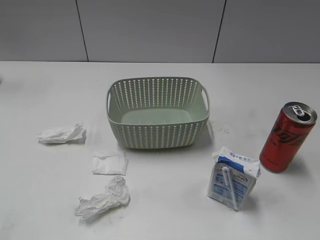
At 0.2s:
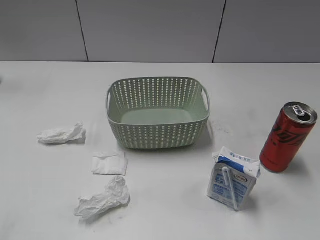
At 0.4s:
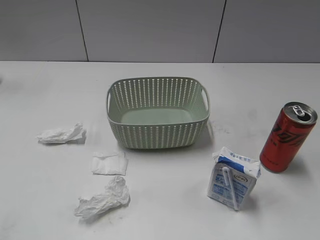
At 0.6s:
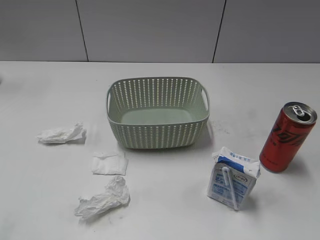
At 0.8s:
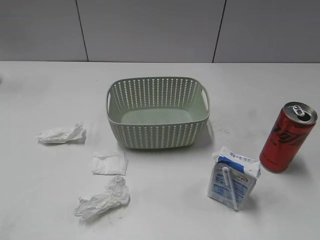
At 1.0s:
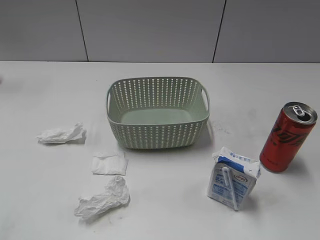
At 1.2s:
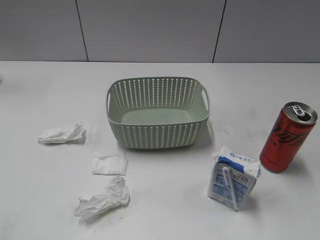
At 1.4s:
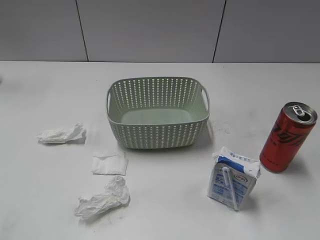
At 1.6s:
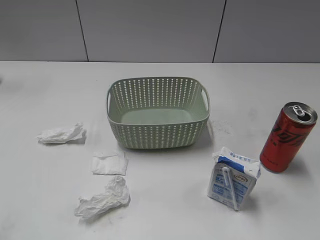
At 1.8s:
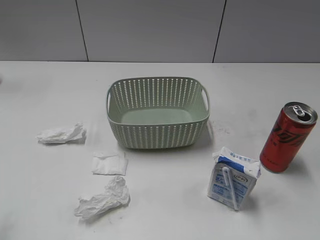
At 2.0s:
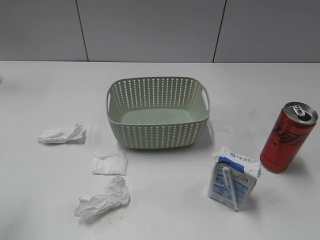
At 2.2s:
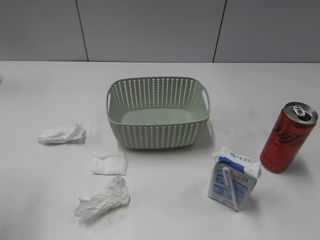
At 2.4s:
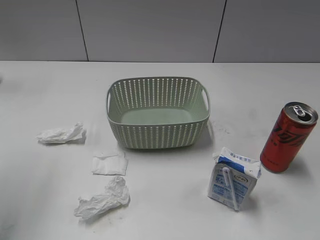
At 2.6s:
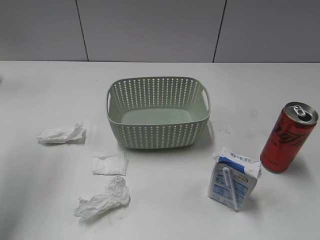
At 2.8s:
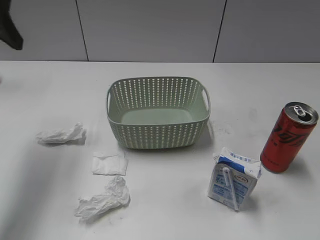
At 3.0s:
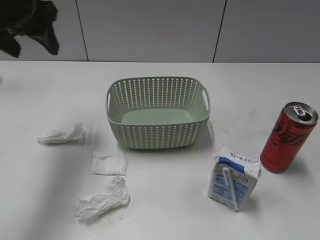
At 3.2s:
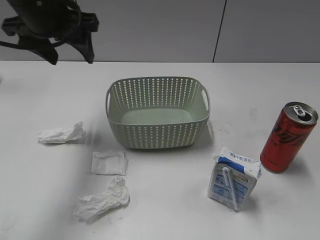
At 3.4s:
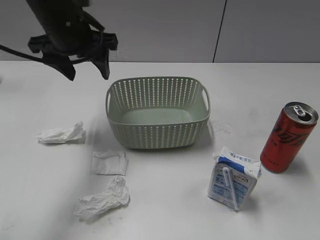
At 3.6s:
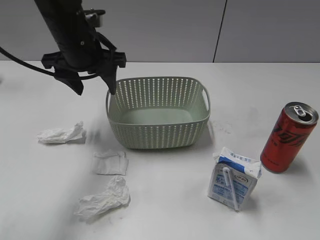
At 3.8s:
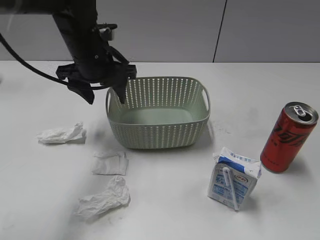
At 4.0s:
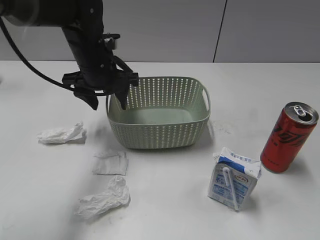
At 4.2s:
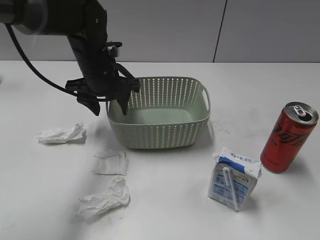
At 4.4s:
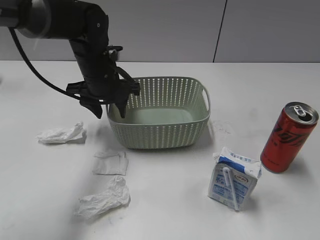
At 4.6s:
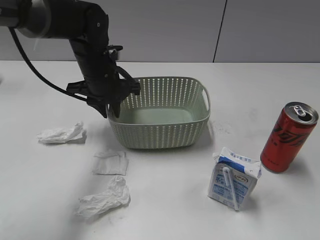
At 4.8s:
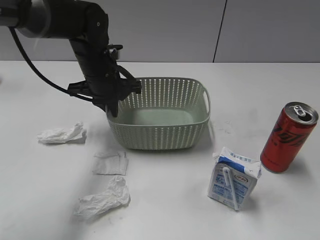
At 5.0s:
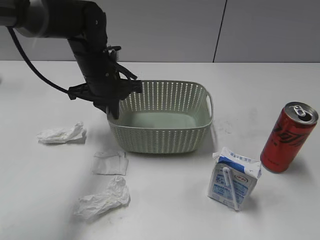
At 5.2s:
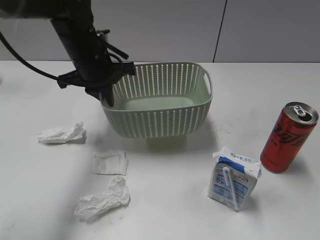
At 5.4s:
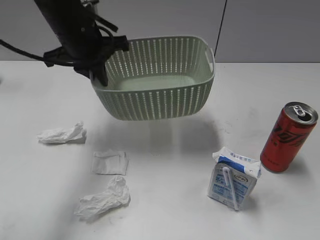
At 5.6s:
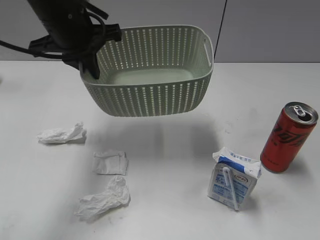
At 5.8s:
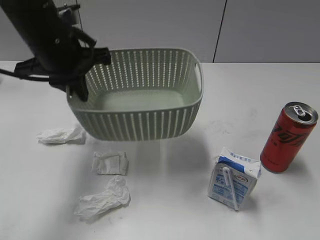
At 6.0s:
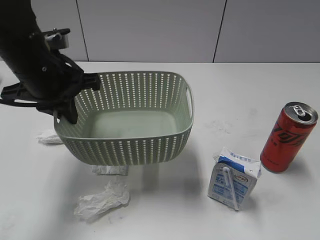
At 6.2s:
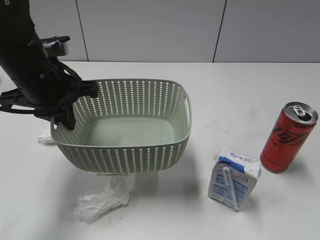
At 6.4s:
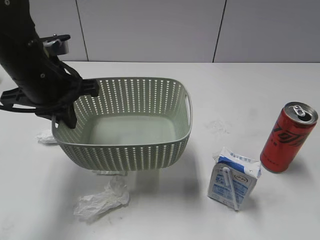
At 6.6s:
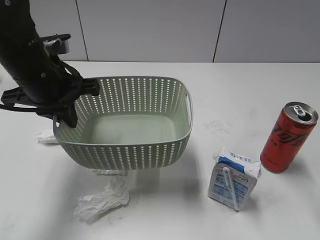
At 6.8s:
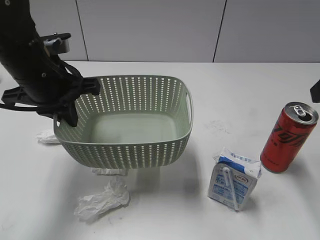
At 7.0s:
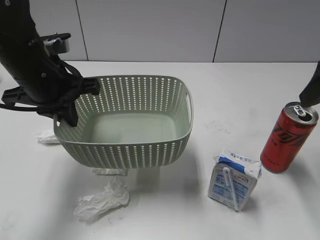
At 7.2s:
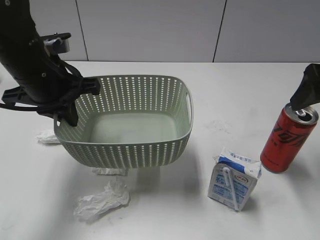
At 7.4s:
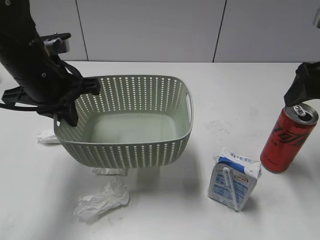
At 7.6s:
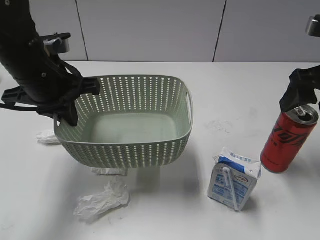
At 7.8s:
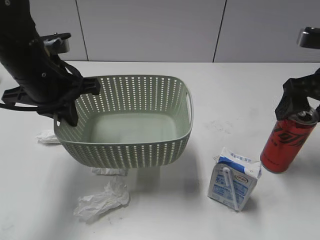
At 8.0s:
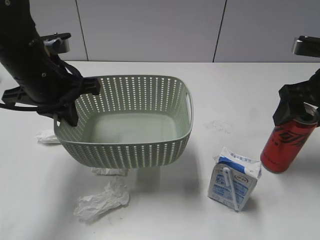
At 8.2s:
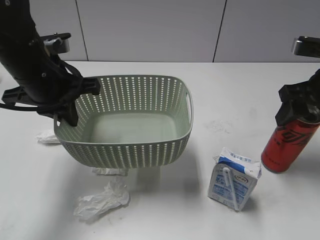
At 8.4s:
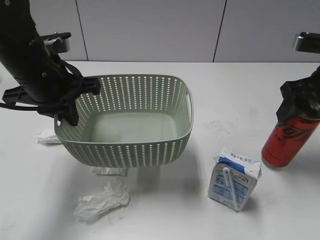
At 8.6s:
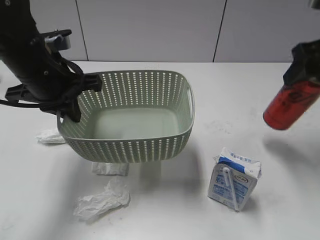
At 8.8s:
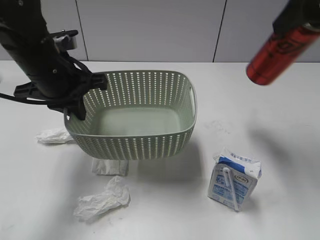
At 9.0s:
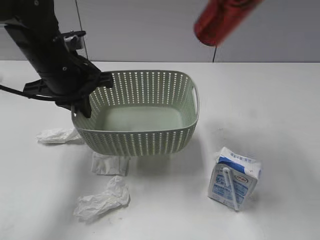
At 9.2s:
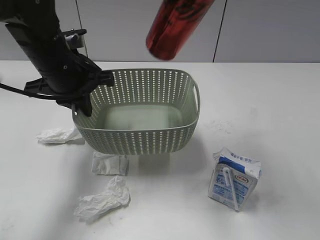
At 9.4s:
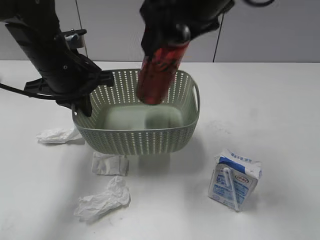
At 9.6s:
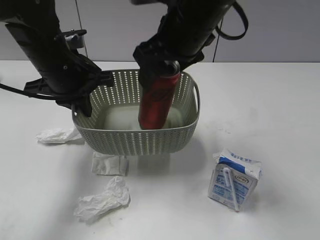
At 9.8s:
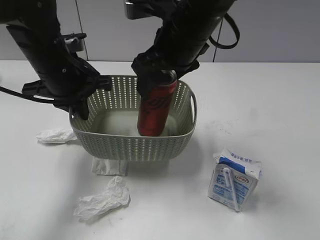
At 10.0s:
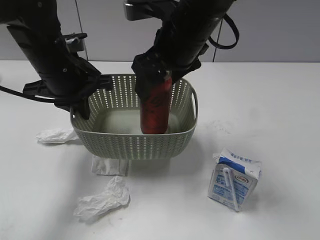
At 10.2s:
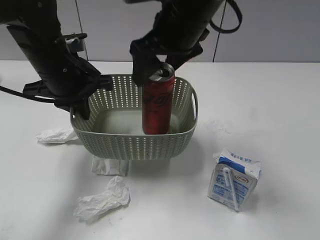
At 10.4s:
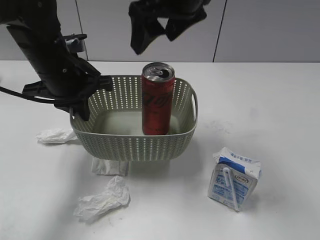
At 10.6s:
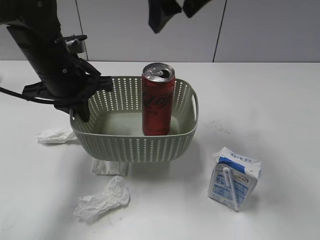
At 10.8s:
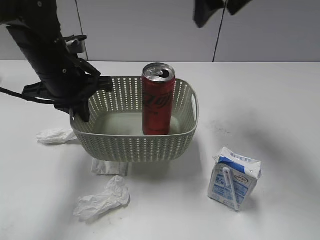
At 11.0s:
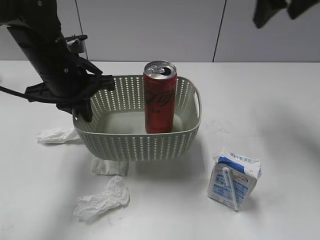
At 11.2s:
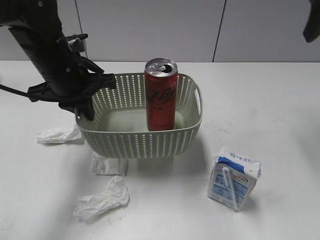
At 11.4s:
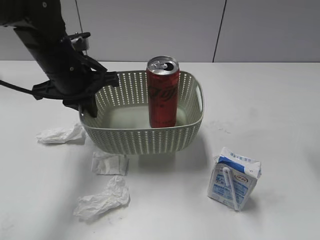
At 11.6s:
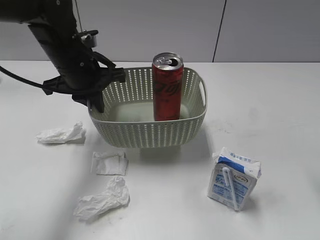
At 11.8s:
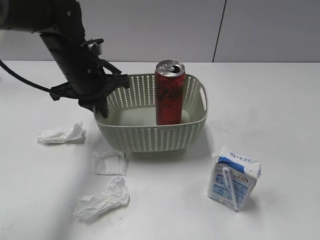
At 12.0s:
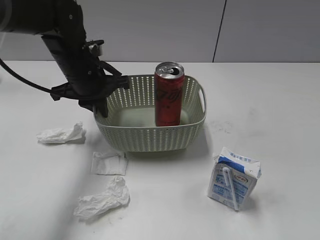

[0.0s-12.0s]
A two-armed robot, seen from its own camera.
Step, 2.8s to 4.8s: Grasp the basket with left gripper.
Step, 5.0s to 6.4s: Lift the basket with left gripper.
Step, 6.6s to 8.4s: Grasp the cola can with right gripper.
Step, 8.6s to 10.2s: Place the cola can in the basket with right gripper.
1.6s to 3.0s: The left gripper travels forward and to the right by approximately 30 cm.
3.0s to 4.4s: The left gripper is displaced downward and to the right by some 20 cm.
4.4s to 6.0s: The right gripper travels upward by about 5 cm; the left gripper shifts roughly 15 cm backward, upward and to the left, and closes up.
6.0s to 7.6s: The right gripper heads forward, covering roughly 25 cm, and opens up.
7.6s to 9.0s: The right gripper travels upward and to the left by approximately 20 cm, and closes up.
9.0s to 10.4s: The right gripper moves to the left, downward and forward, approximately 15 cm, and opens its fingers.
10.4s to 12.0s: The left gripper ends up some 5 cm from where it was; the right gripper is displaced to the right and backward by about 35 cm, and closes its fingers.

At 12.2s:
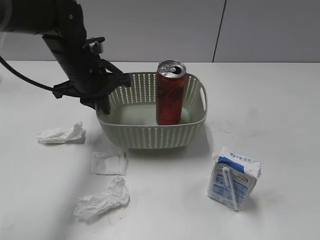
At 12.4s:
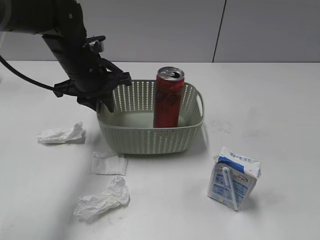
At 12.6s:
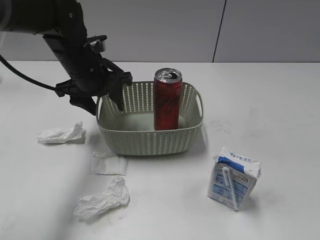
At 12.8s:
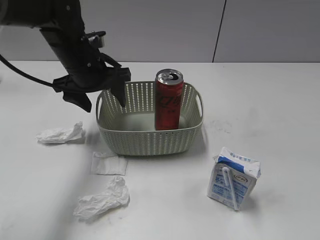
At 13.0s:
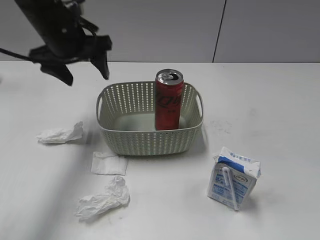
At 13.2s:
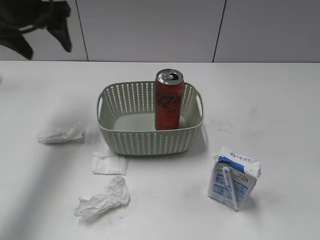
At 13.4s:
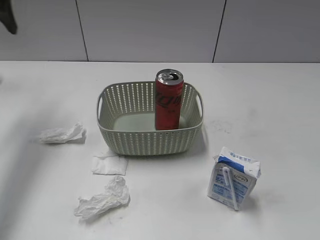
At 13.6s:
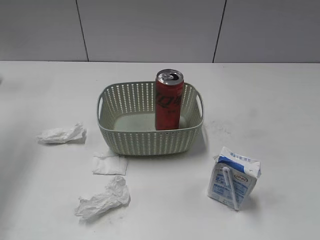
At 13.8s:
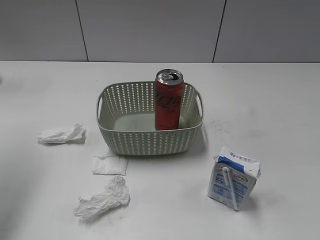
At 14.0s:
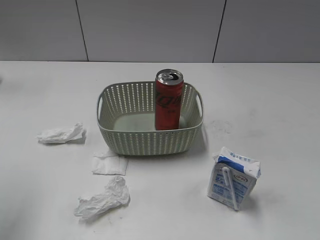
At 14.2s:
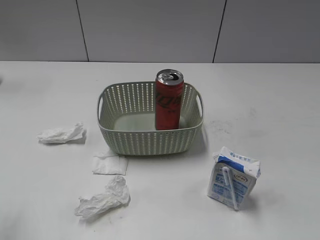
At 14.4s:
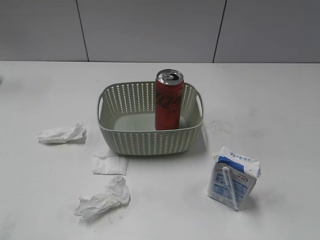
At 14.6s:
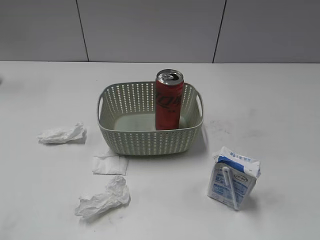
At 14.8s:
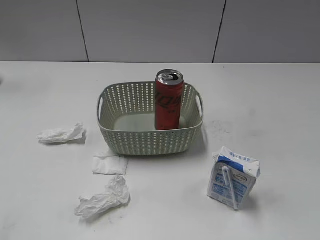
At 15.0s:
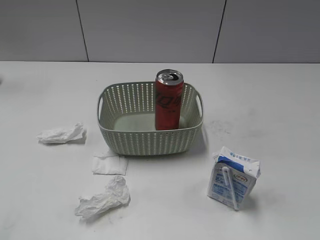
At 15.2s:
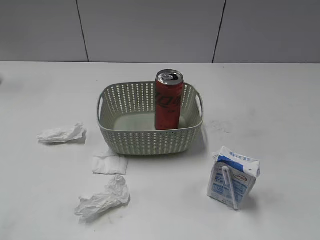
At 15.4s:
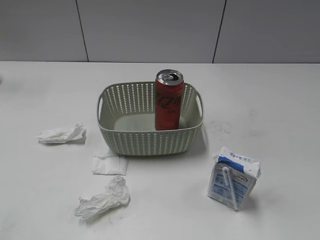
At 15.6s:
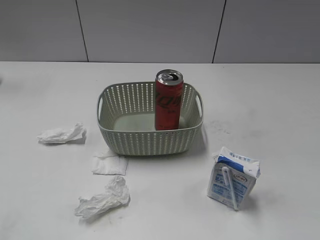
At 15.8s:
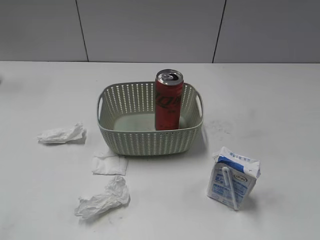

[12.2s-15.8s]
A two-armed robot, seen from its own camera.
12.2s to 14.0s: The right gripper shifts roughly 5 cm backward. The left gripper heads backward, to the left and upward, covering roughly 30 cm, and opens up.
14.0s to 15.8s: The left gripper shifts approximately 15 cm backward.

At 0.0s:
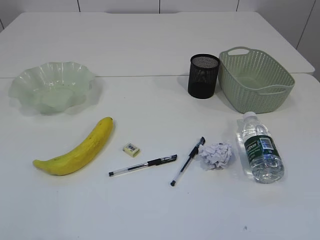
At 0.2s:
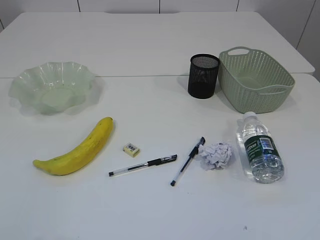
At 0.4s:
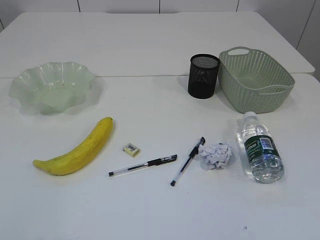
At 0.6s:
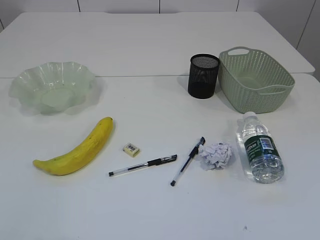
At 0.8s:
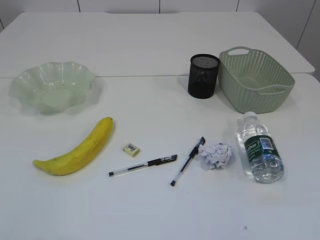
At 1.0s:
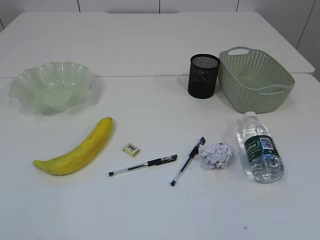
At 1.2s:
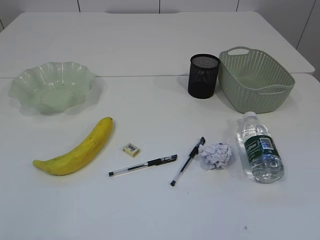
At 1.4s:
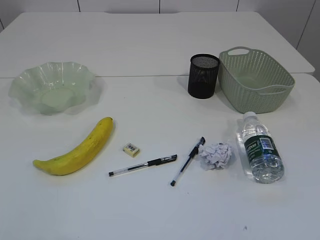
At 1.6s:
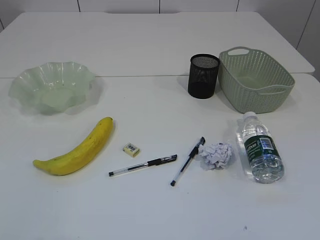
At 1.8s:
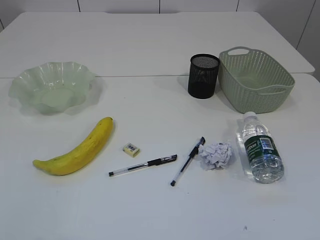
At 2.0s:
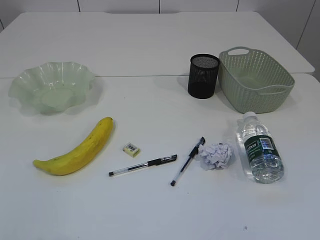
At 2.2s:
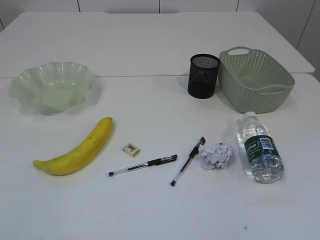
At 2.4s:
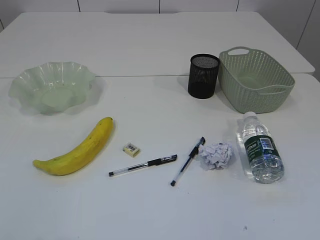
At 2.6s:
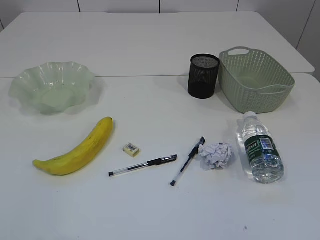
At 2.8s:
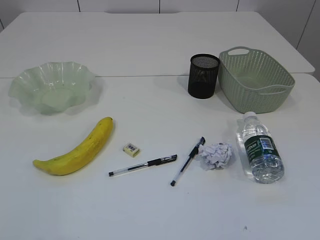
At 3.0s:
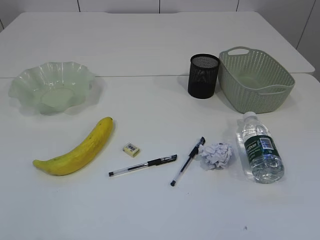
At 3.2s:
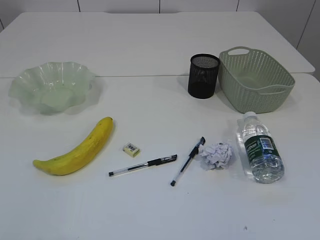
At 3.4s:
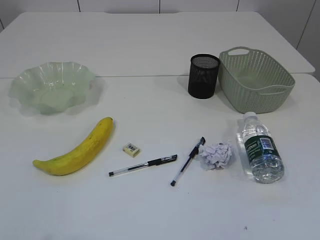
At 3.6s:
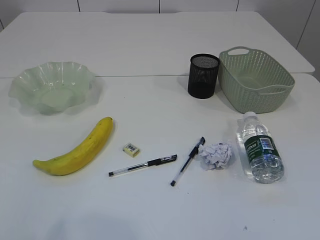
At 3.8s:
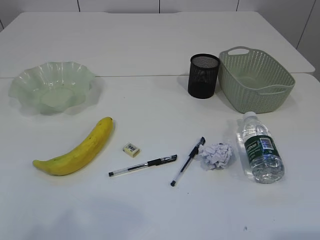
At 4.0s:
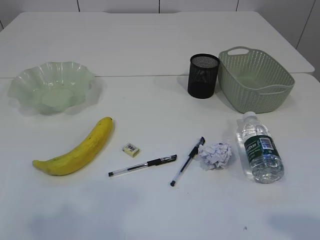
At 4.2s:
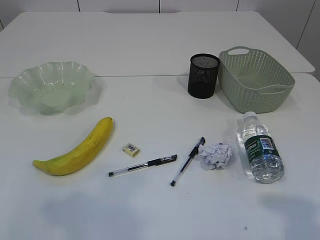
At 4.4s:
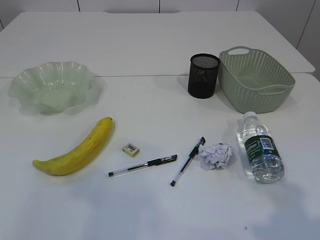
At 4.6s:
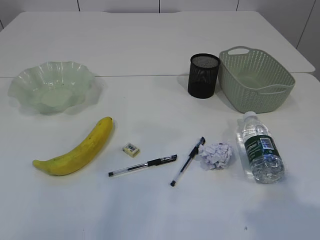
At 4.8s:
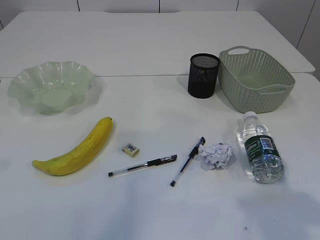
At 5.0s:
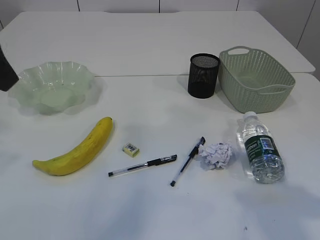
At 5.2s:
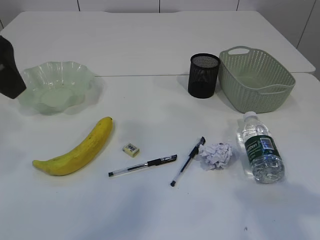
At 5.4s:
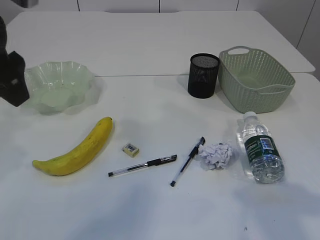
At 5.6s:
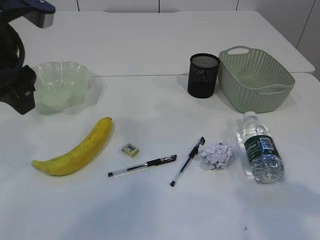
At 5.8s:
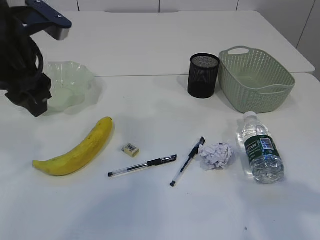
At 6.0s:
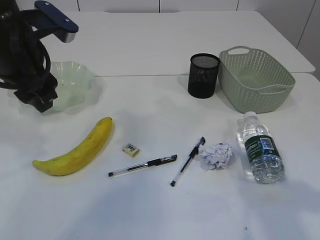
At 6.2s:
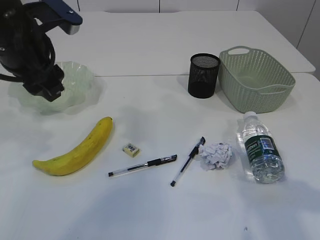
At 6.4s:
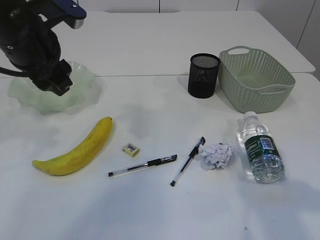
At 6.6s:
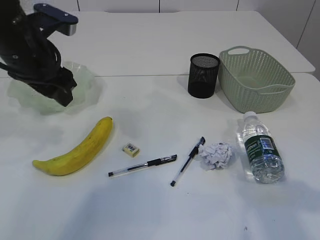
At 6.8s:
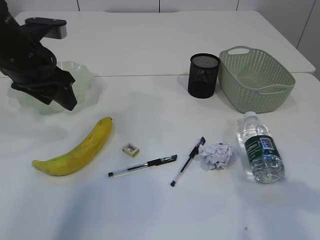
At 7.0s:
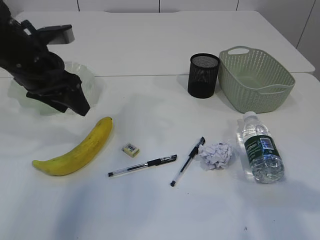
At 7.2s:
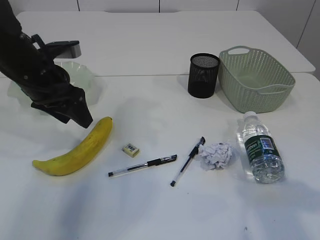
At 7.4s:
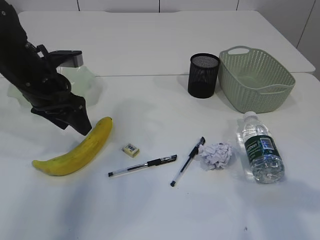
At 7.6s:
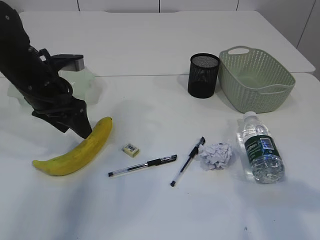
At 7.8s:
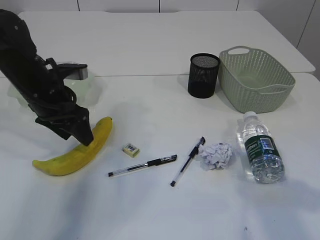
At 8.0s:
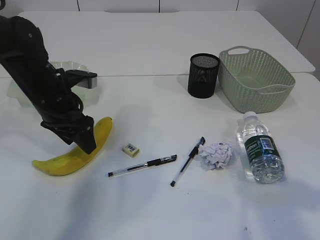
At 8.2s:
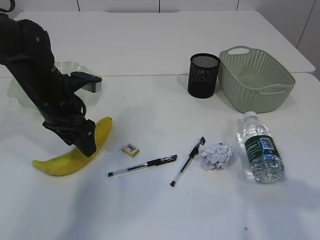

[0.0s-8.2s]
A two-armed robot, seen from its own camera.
1.6s to 3.2s: Both grippers stay put.
3.2s to 5.0s: The right gripper heads forward, covering some 15 cm, while the left gripper moves forward, upward and to the right, some 25 cm.
5.0s to 6.6s: The left gripper is displaced forward and downward by roughly 15 cm.
6.6s to 8.2s: The left gripper goes approximately 10 cm downward.
